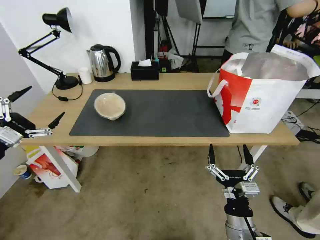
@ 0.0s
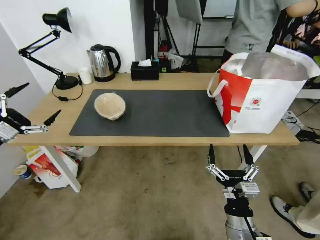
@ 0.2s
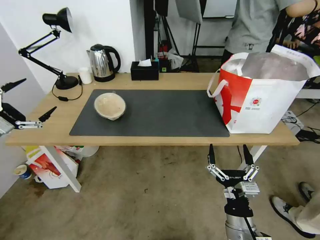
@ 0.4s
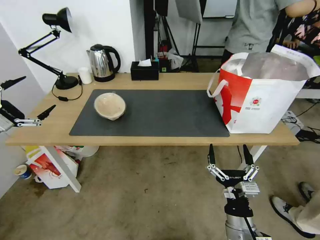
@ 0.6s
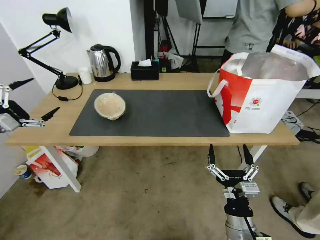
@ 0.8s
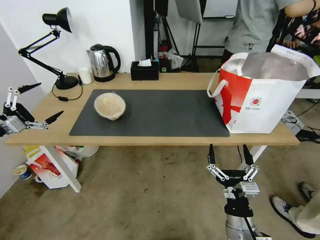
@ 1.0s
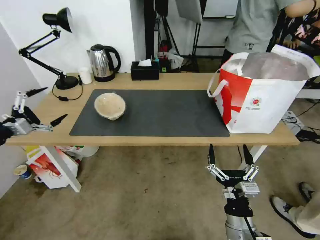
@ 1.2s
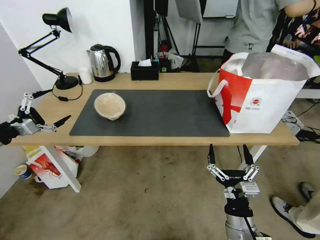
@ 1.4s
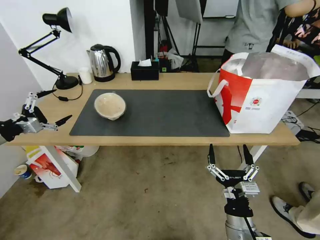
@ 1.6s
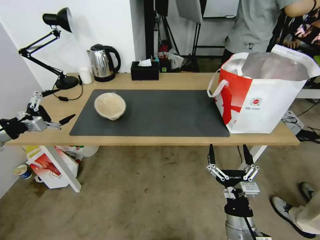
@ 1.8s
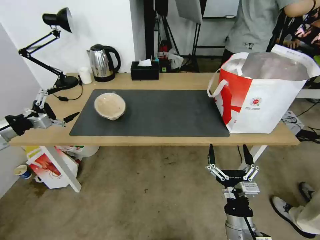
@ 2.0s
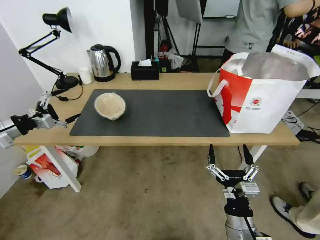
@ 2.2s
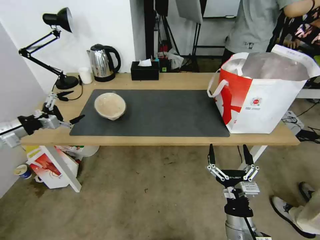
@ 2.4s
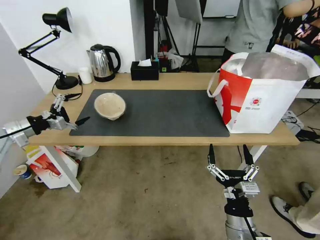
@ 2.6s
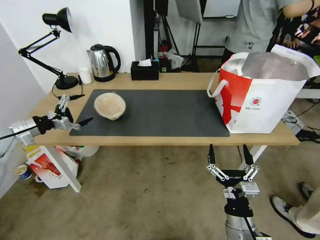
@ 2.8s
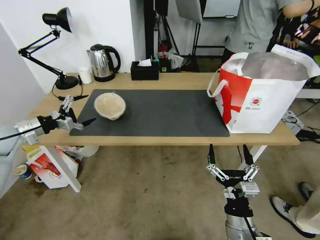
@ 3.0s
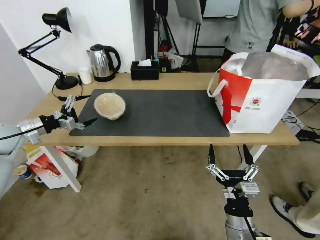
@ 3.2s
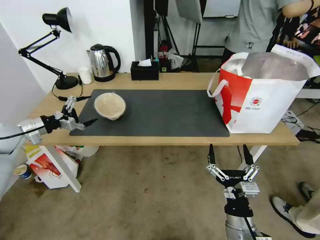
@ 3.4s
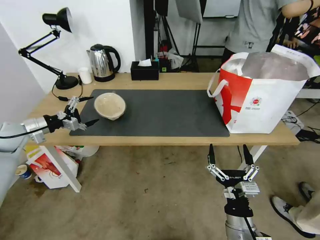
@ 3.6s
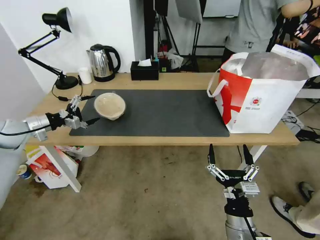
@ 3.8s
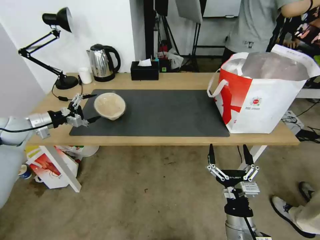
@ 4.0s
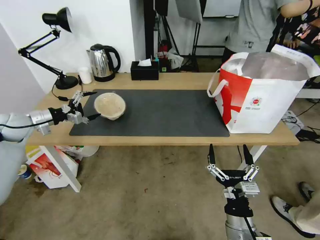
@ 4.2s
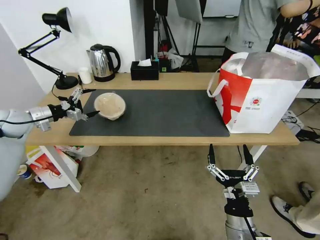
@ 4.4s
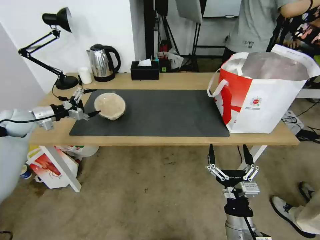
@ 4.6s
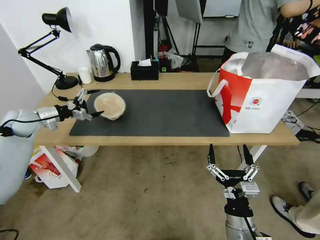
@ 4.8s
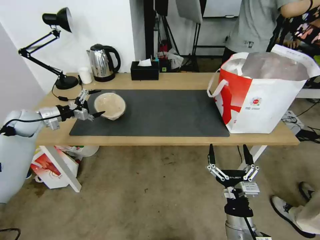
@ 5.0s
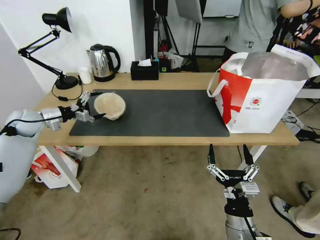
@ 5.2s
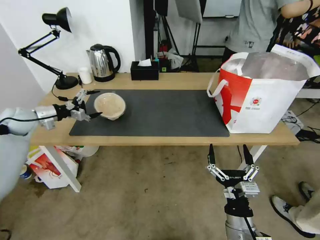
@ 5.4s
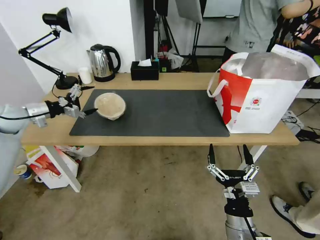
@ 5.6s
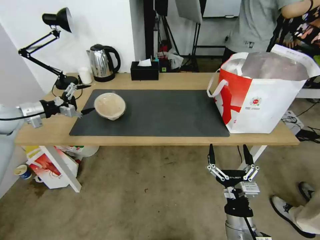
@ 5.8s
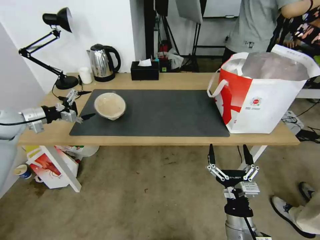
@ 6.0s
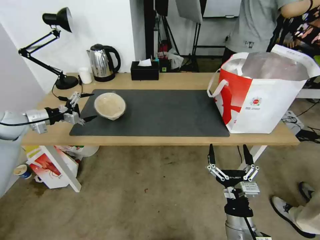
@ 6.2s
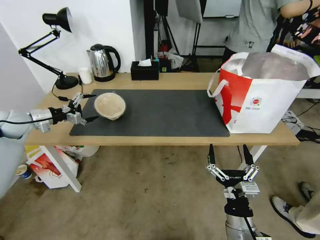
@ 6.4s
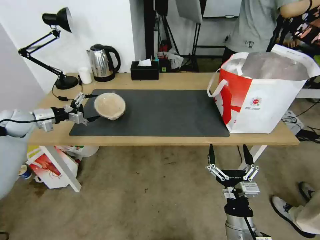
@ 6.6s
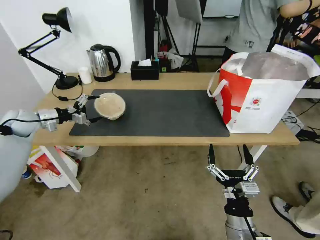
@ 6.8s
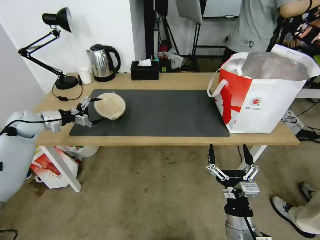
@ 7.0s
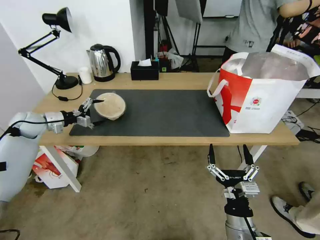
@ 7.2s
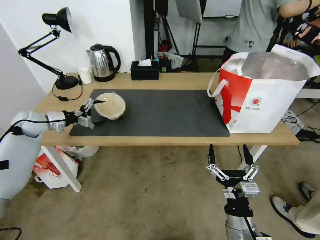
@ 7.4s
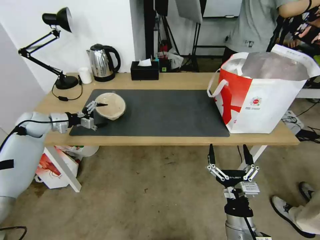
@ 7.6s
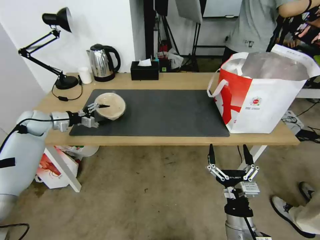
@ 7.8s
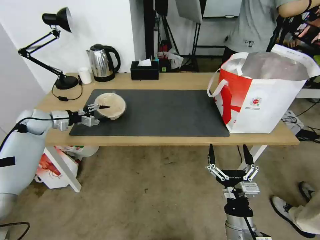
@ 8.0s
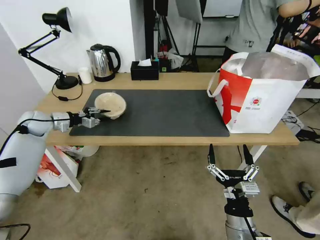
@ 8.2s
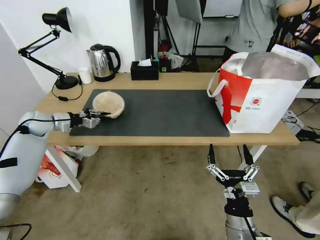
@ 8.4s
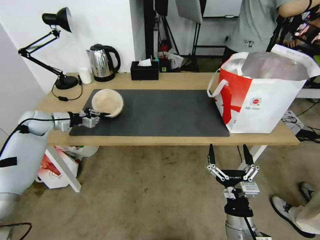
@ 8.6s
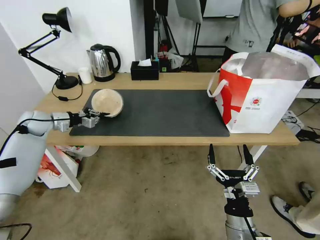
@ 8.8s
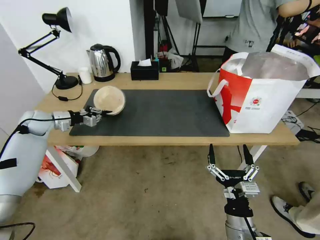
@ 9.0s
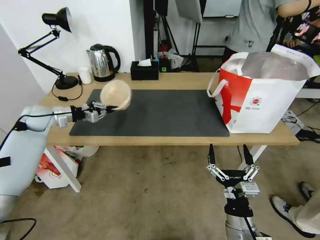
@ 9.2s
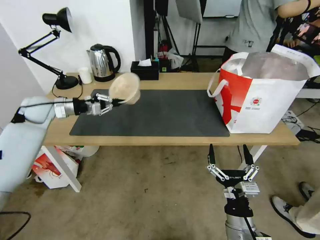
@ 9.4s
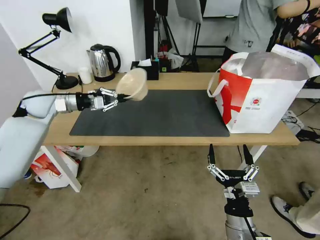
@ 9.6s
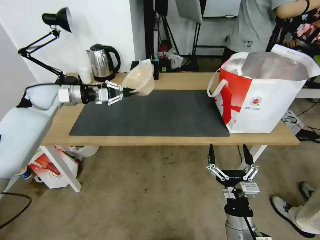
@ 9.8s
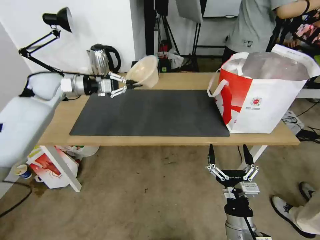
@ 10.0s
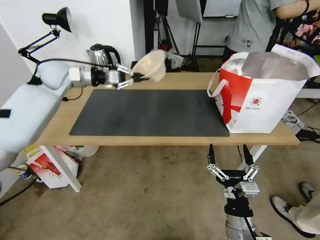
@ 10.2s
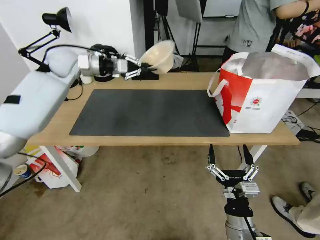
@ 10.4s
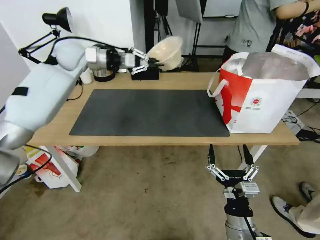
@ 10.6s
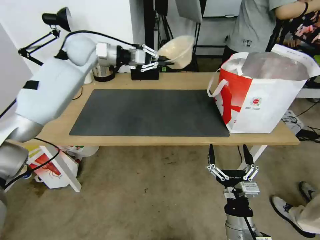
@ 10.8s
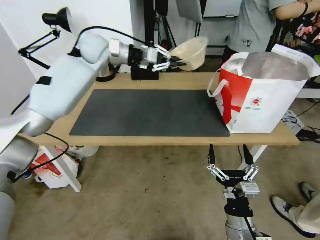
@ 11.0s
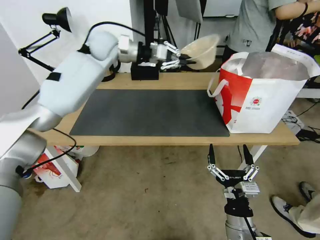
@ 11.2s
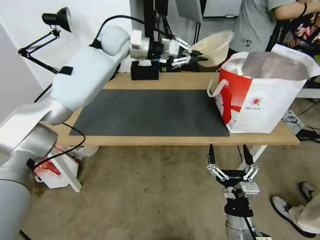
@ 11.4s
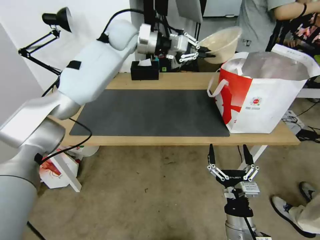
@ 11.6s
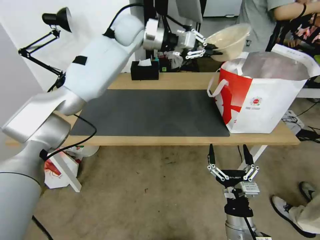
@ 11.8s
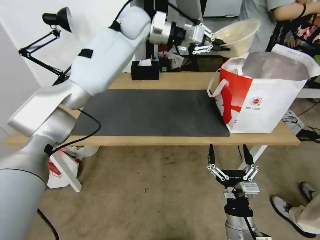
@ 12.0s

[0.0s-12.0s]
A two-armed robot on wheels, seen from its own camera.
Task of the whole recording: Pick up the trash from the table and place it into the takeout bag.
0.0s to 1.6s: The left gripper travels forward by about 5 cm.
1.6s to 3.0s: The left gripper goes about 10 cm forward.
3.0s to 4.4s: The left gripper heads forward, covering approximately 5 cm.
4.4s to 6.0s: The grippers make only small movements.
6.0s to 7.6s: The left gripper travels downward and forward by roughly 10 cm.
7.6s to 9.0s: The left gripper closes up.
9.0s to 10.4s: The left gripper goes roughly 25 cm upward, to the right and forward.
10.4s to 12.0s: The left gripper is displaced to the right and upward by roughly 25 cm.

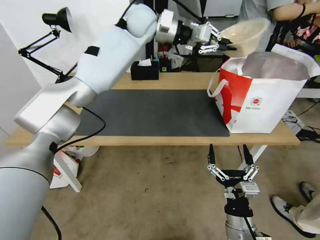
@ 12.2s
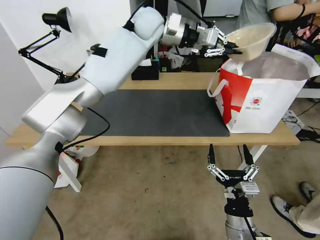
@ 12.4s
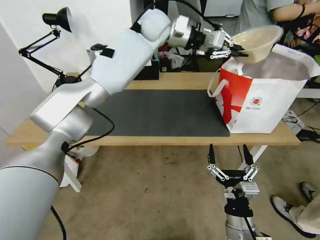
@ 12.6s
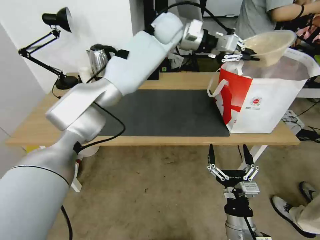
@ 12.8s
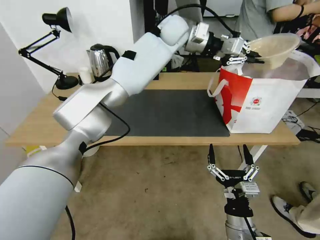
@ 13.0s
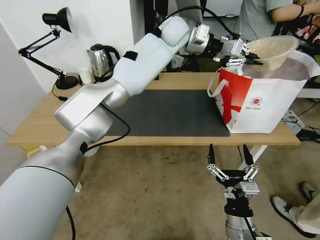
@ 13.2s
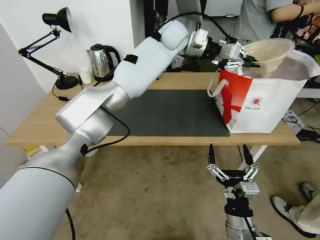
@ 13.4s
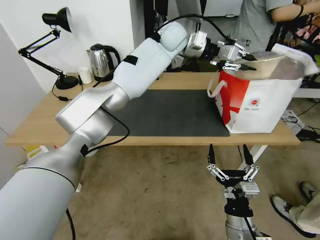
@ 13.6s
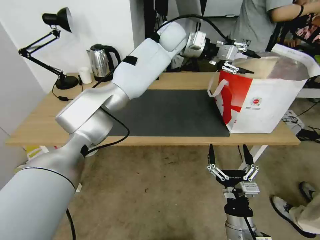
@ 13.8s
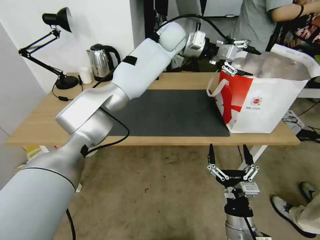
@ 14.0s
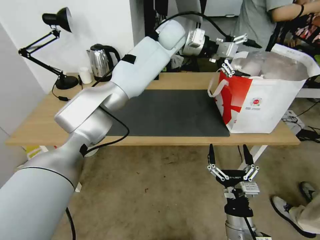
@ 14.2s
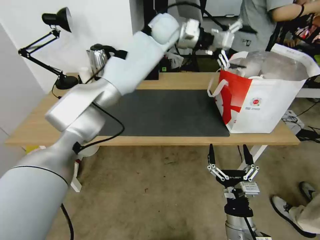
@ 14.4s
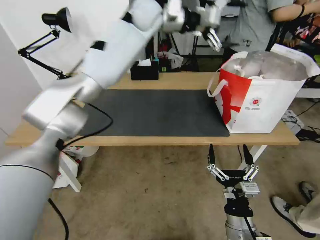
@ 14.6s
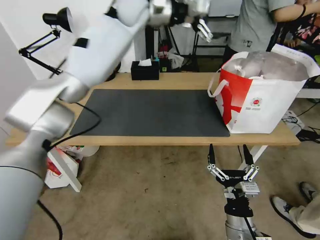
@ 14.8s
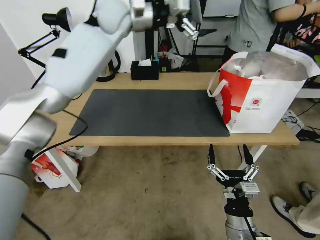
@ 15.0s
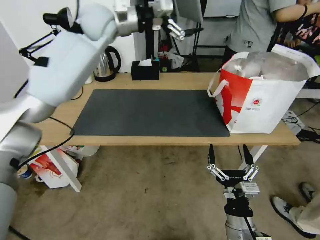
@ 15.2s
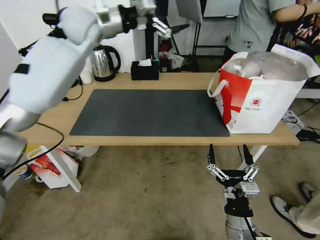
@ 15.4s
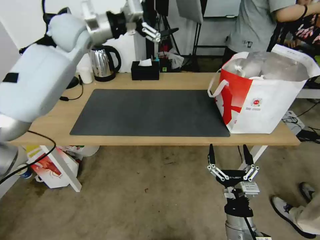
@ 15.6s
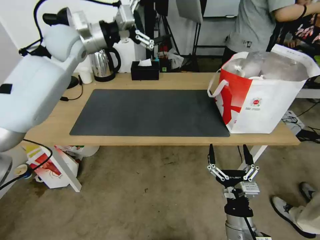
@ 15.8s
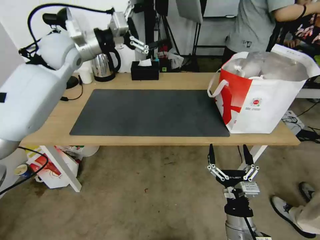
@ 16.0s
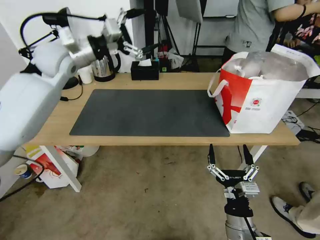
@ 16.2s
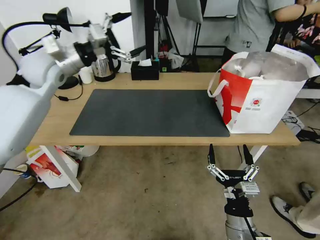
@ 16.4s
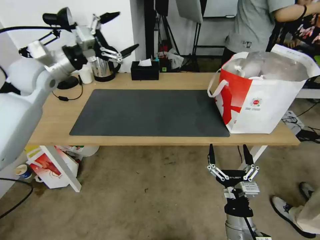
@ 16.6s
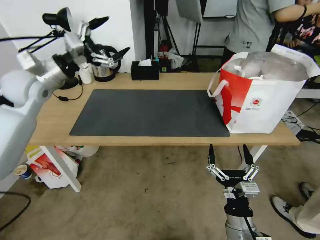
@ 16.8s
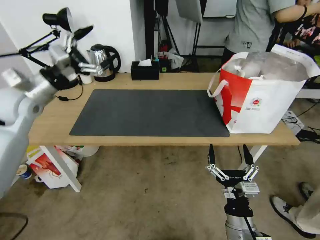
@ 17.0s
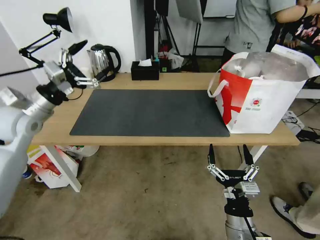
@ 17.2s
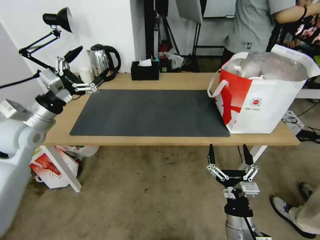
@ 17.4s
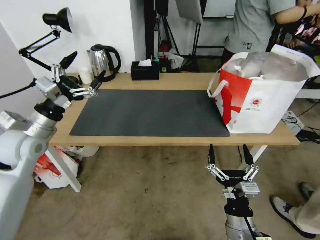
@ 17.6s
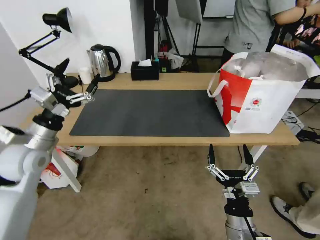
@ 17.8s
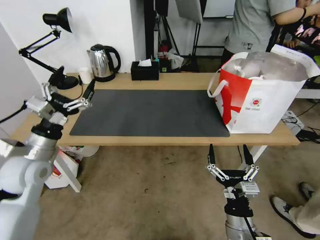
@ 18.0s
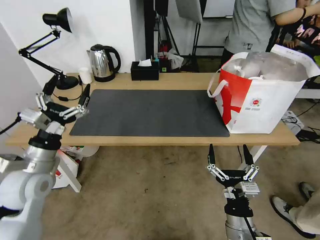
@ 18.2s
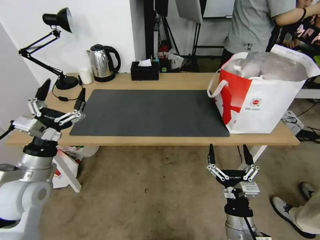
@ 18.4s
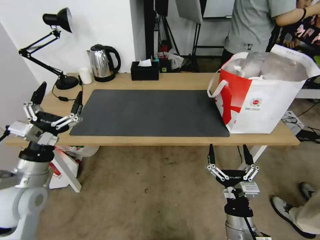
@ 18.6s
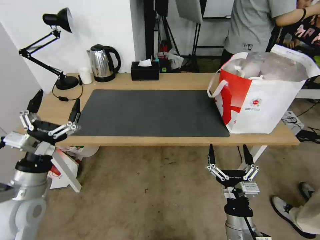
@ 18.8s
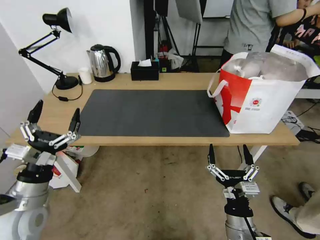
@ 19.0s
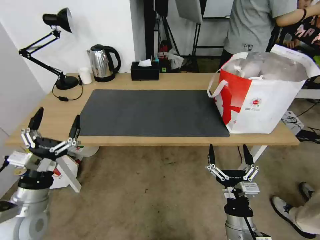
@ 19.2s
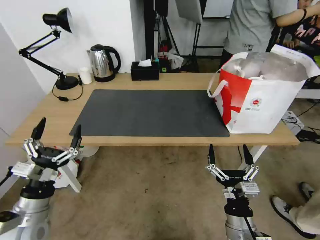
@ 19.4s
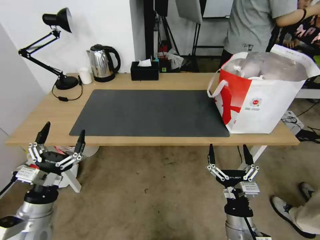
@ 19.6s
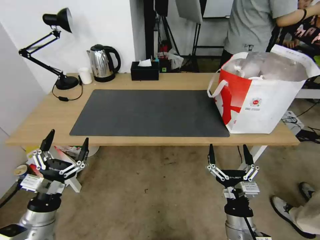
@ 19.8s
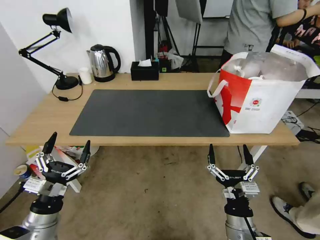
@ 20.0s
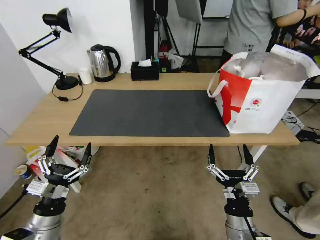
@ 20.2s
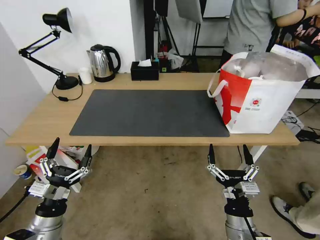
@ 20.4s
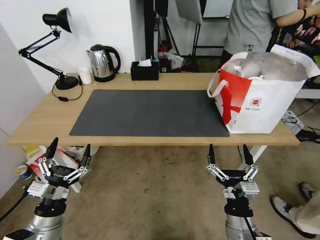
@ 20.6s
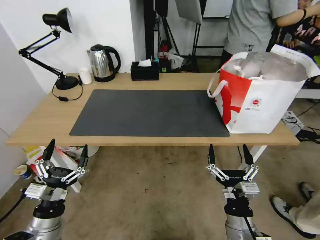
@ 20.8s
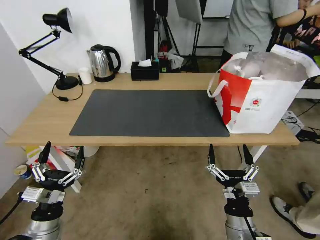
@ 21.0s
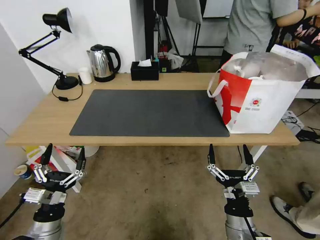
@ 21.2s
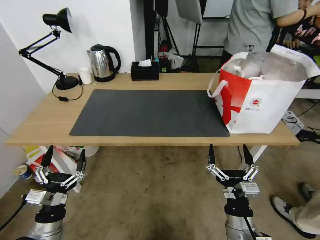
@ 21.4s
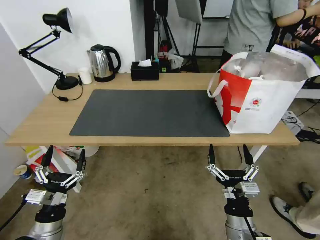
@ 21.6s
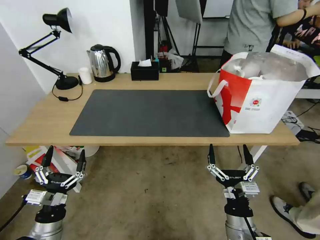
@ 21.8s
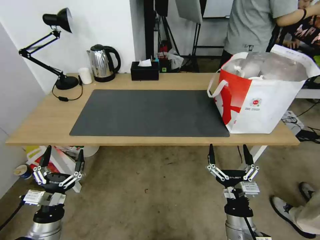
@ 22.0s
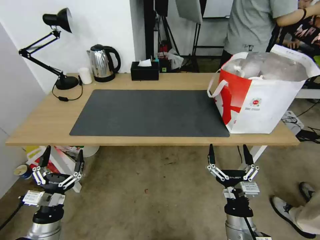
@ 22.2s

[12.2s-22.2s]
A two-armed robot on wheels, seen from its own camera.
Task of the whole recording: Pick up the trash from the table and place it into the takeout bag.
12.2s to 13.6s: The left gripper travels to the right by some 10 cm.
13.6s to 15.0s: The left gripper heads to the left and upward, covering about 15 cm, and opens up.
15.0s to 16.4s: The left gripper heads to the left, backward and downward, covering roughly 25 cm.
16.4s to 18.0s: The left gripper heads backward and downward, covering some 25 cm.
18.0s to 19.4s: The left gripper shifts about 15 cm backward and downward.
19.4s to 20.8s: The left gripper is displaced downward by about 5 cm.
20.8s to 22.2s: There are only small adjustments of the grippers.
